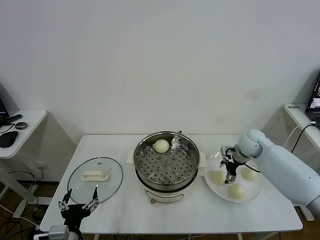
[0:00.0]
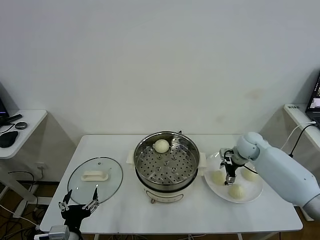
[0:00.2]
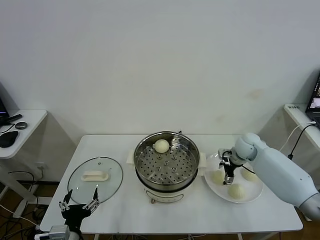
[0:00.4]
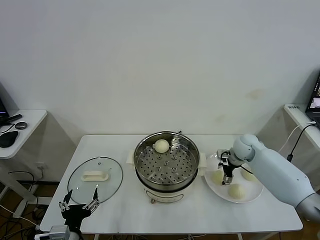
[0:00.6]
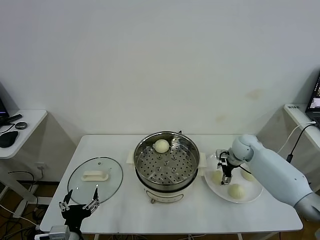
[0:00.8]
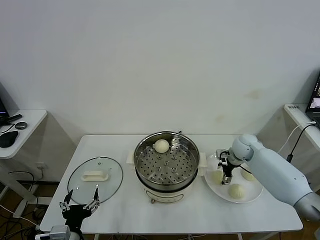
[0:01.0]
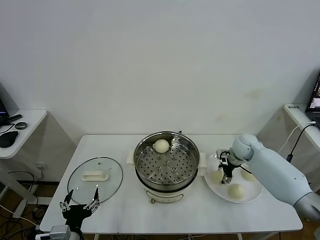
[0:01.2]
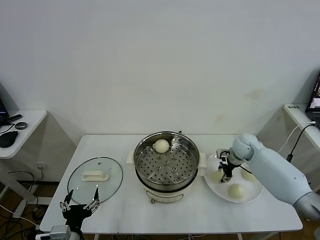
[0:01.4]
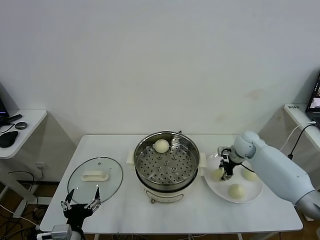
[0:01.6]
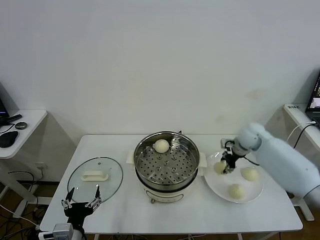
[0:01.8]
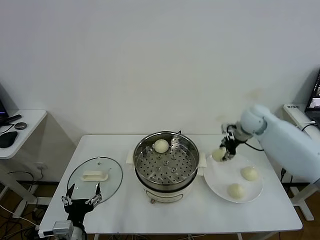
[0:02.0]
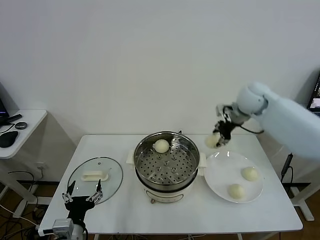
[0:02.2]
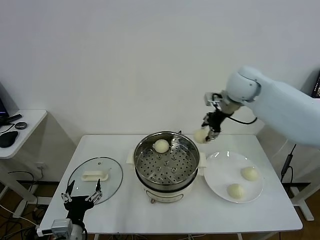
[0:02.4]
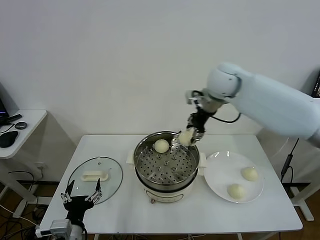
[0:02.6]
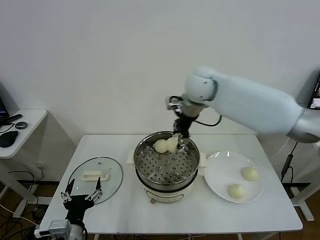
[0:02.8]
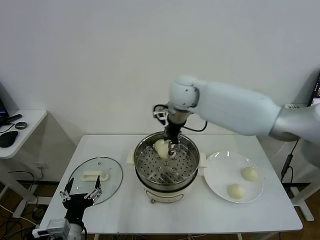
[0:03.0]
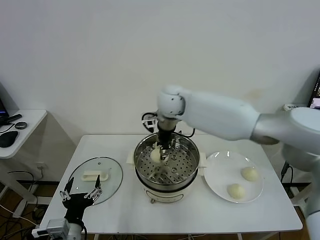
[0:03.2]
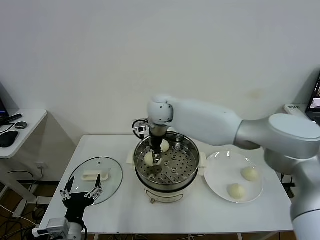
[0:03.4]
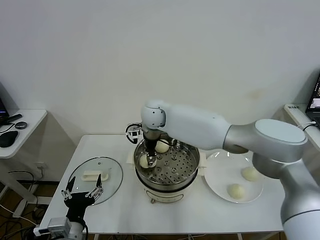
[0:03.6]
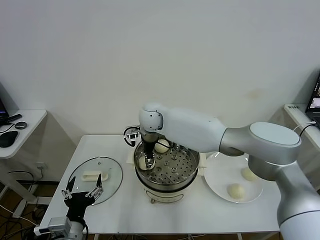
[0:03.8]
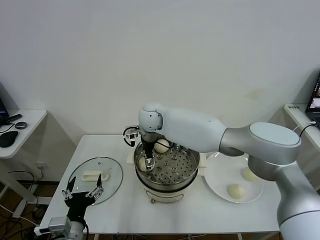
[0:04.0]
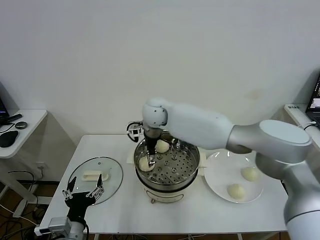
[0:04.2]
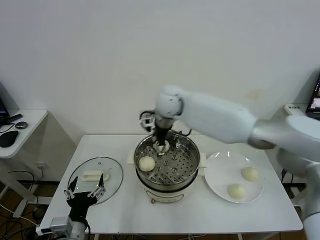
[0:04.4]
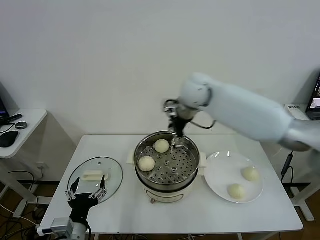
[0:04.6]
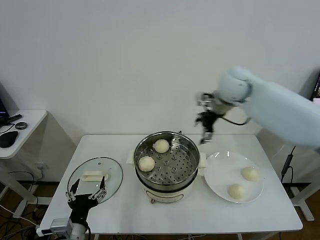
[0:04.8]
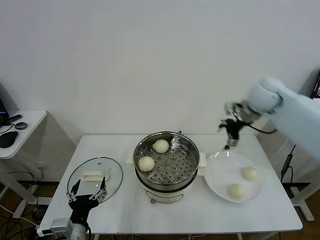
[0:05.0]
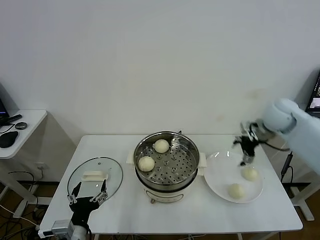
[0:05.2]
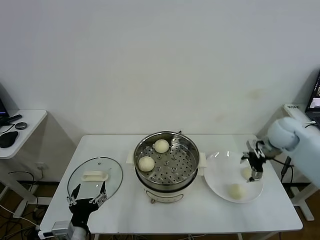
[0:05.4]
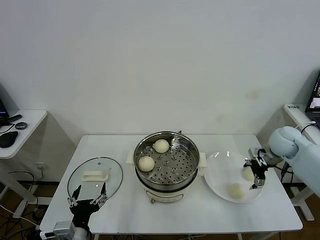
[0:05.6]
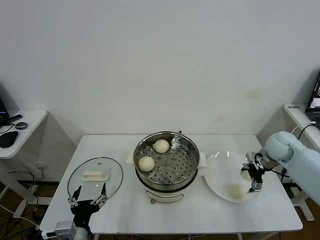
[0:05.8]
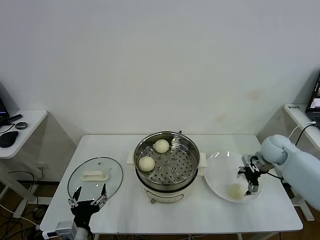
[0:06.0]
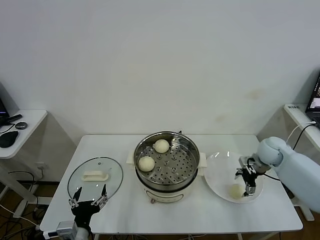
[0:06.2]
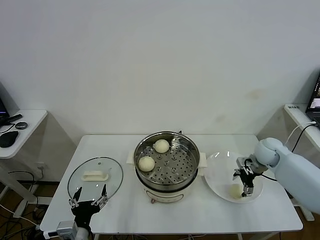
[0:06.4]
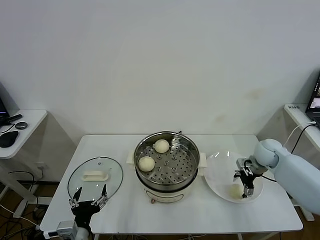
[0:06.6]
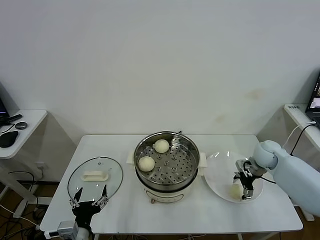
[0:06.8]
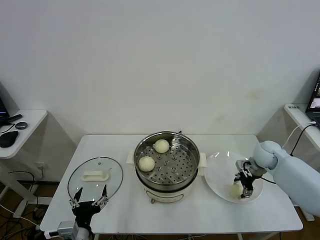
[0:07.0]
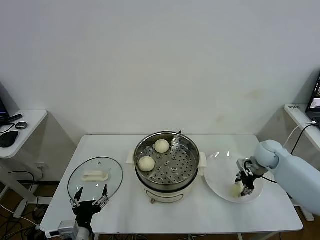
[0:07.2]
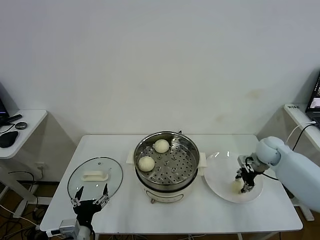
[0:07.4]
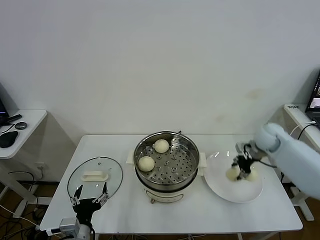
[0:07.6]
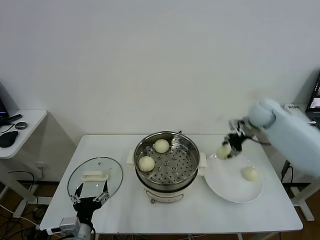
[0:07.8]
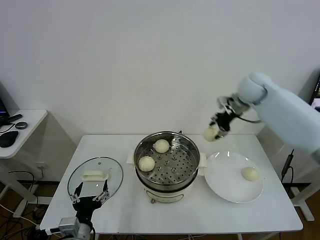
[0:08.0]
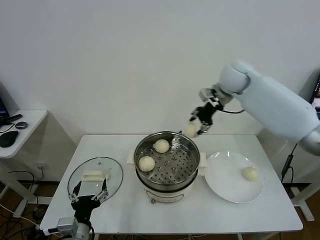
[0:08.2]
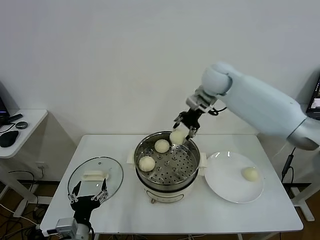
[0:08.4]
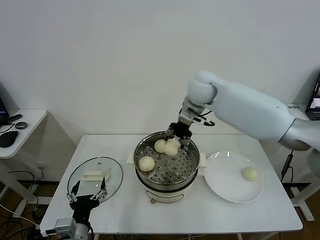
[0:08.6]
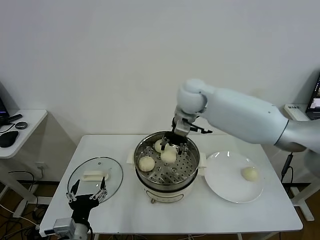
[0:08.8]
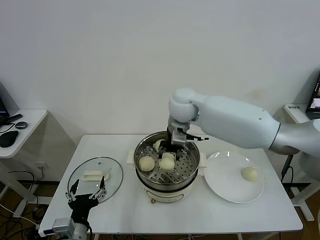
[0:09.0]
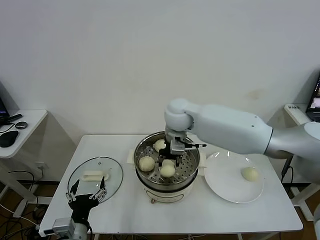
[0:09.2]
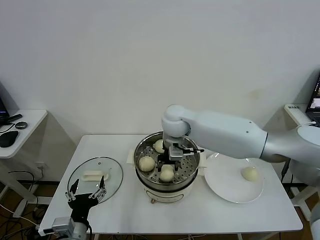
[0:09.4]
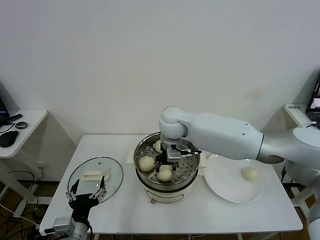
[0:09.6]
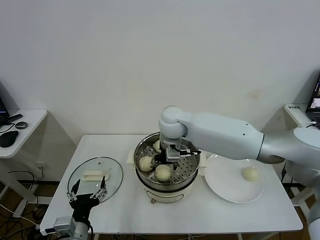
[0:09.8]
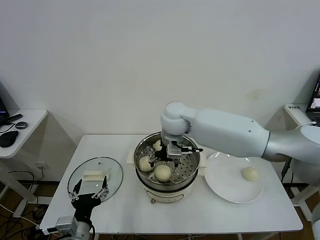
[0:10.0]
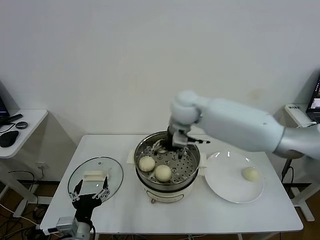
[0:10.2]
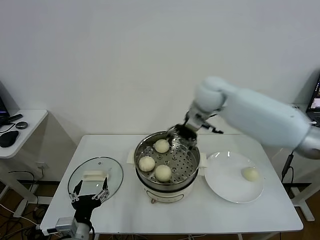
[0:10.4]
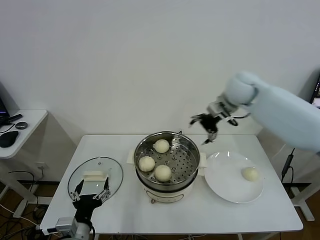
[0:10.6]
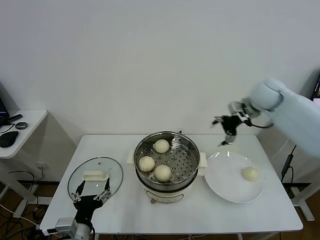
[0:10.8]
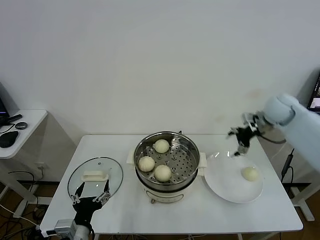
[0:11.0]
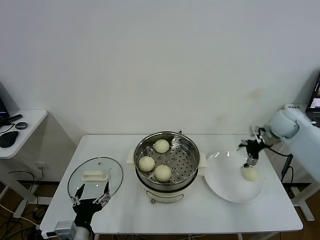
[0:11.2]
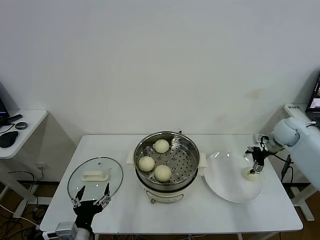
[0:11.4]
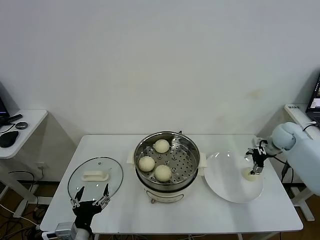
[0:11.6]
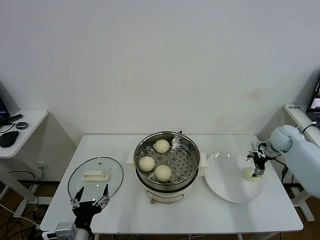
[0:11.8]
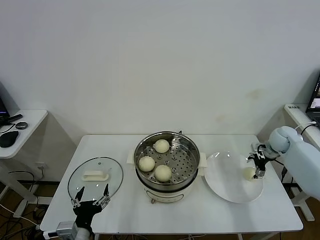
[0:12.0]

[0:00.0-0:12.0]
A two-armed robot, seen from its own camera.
Task of the whole recording: take steamed baozi put them in steamer.
Step, 0:01.6 to 0:04.6: Place the baozi on the steamer with right gripper.
Step, 0:04.8 to 0:07.0: Grasp the baozi in the plate with right gripper.
Step, 0:07.2 to 0:10.0: Place the baozi on the steamer with right gripper.
0:00.0 to 0:01.6: The right gripper closes its fingers.
0:01.6 to 0:03.0: The right gripper travels to the left and upward by approximately 35 cm.
0:03.0 to 0:04.4: The right gripper goes to the left and returns, roughly 10 cm each way, and opens its fingers.
0:04.4 to 0:06.0: The right gripper shifts roughly 40 cm to the right and downward.
0:06.0 to 0:07.6: The right gripper moves approximately 5 cm, and closes its fingers.
0:07.6 to 0:09.0: The right gripper heads to the left and upward, covering roughly 35 cm.
0:09.0 to 0:10.4: The right gripper goes about 10 cm to the right, and opens up.
0:10.4 to 0:12.0: The right gripper moves to the right and downward, roughly 35 cm.

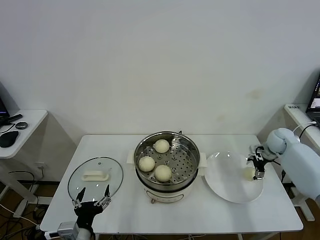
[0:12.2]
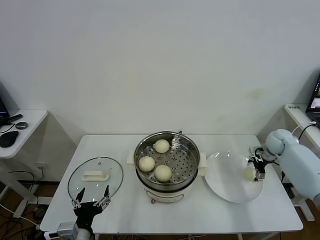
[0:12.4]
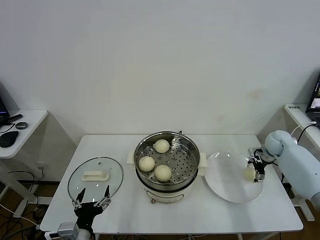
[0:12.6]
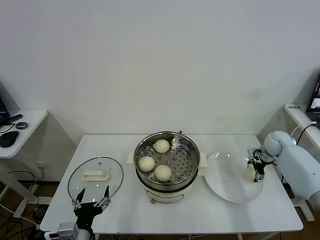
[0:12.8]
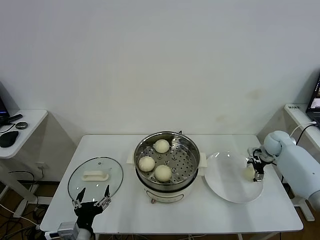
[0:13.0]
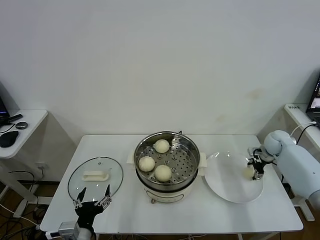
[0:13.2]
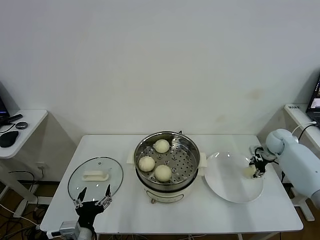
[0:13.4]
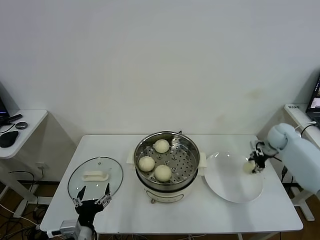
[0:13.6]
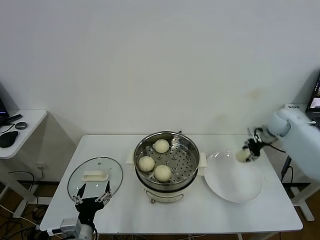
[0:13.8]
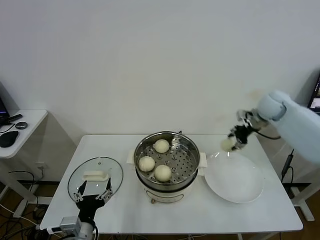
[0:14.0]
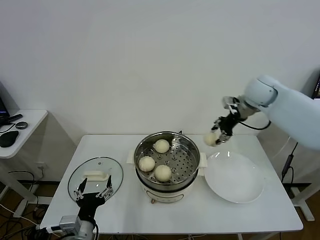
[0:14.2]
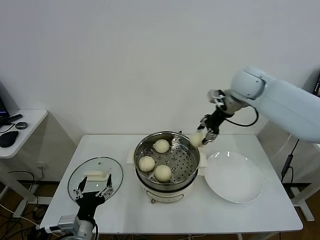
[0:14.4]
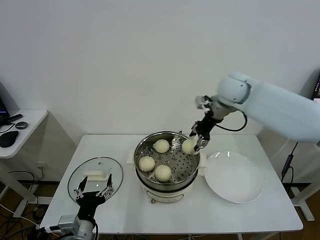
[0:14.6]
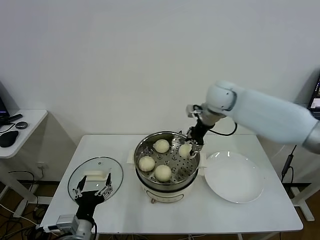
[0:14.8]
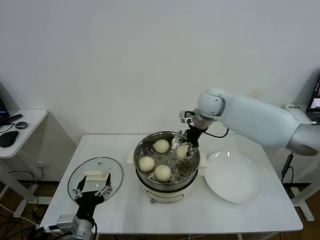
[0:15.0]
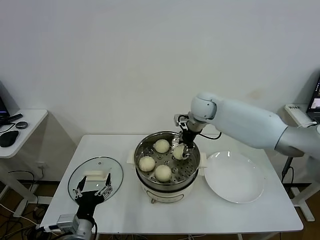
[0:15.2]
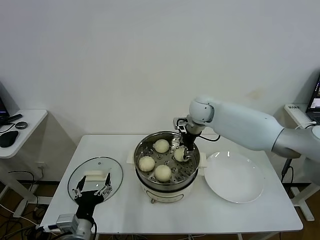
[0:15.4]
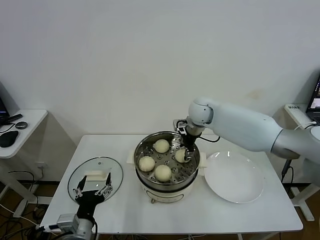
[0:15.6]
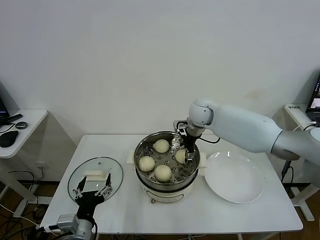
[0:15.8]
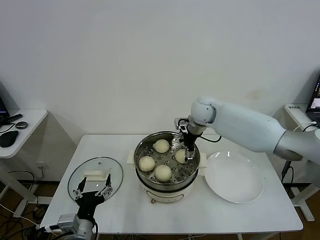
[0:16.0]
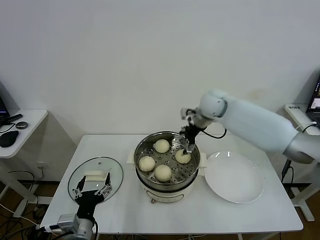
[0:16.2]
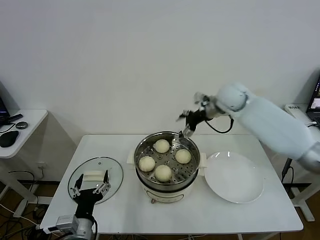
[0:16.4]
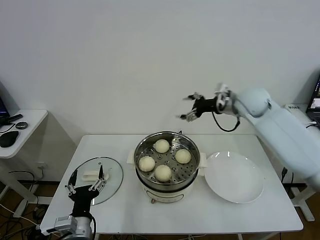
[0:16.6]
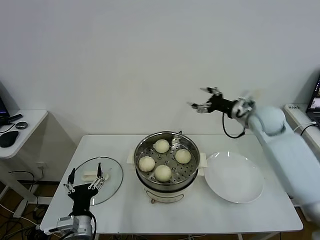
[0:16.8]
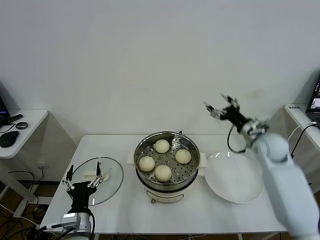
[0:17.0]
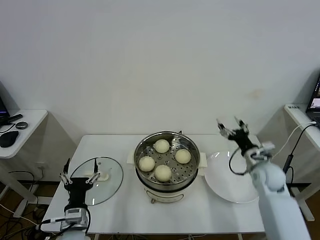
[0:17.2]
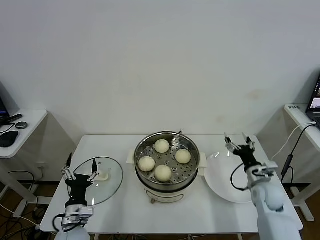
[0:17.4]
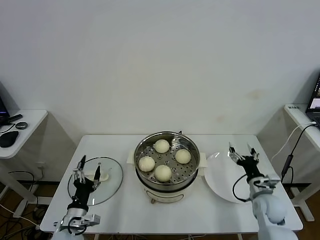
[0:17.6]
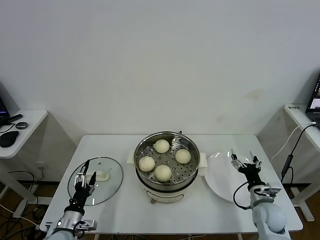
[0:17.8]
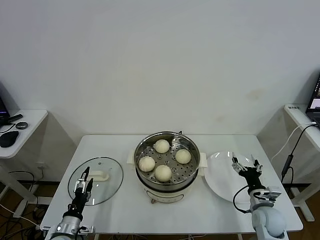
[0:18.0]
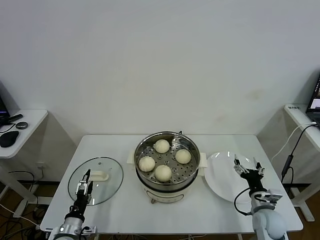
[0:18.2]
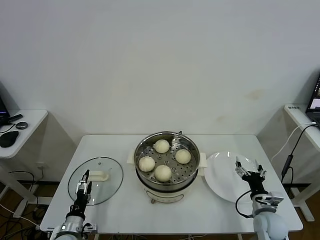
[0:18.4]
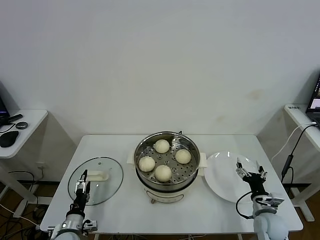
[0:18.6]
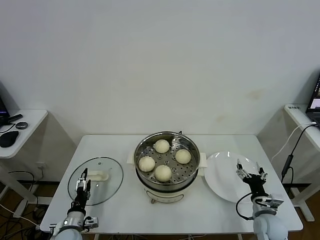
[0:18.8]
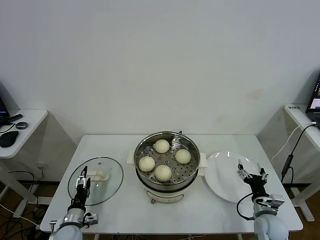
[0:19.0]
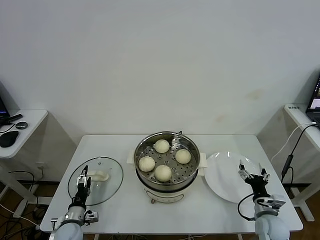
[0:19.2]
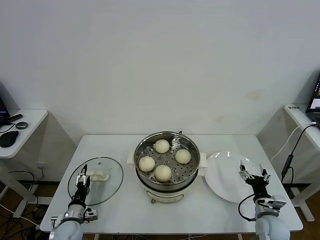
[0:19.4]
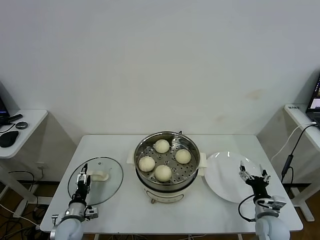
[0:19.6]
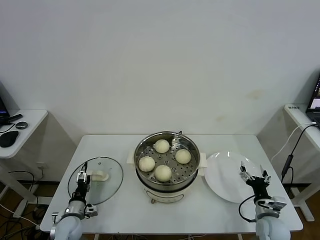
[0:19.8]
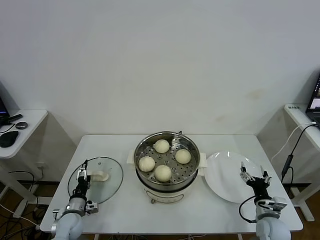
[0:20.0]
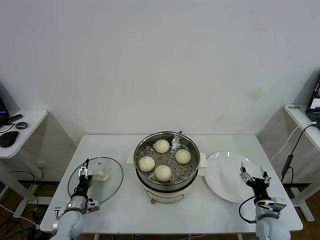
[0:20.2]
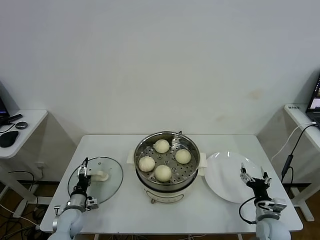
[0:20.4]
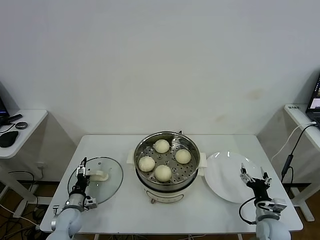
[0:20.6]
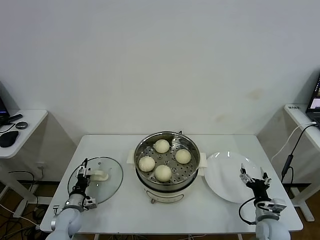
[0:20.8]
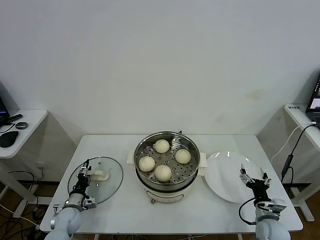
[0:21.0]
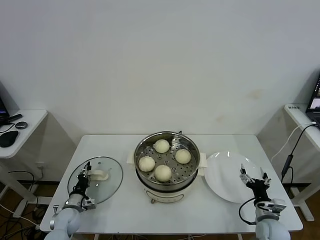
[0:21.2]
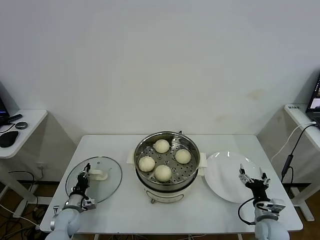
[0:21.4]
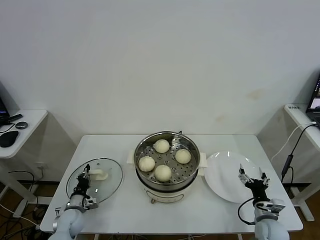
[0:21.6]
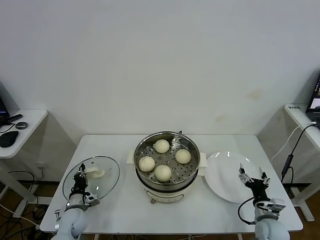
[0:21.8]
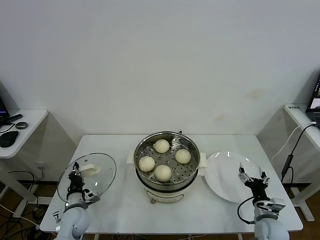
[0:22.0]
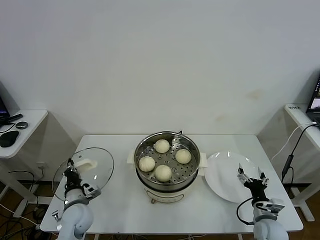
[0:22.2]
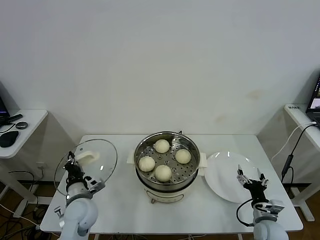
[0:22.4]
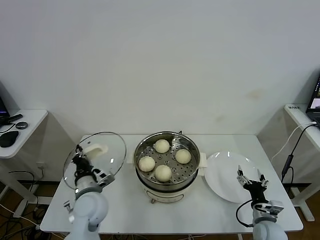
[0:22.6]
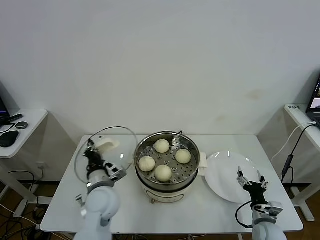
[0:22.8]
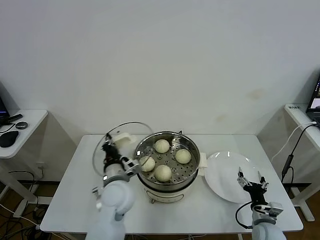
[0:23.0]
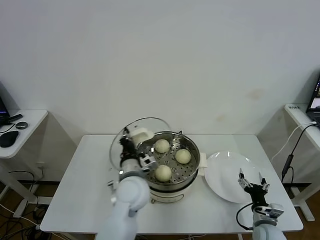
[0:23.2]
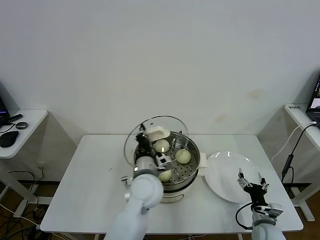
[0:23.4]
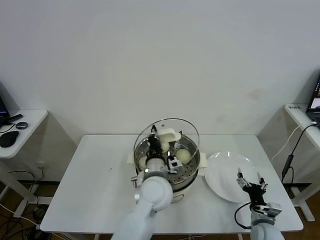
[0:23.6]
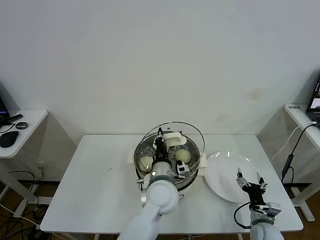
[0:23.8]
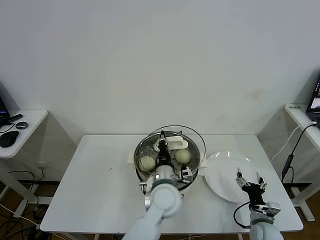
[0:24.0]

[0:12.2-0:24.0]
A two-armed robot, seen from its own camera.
Task of the whole recording: take steamed baozi put them in steamer.
Step, 0:13.4 to 0:16.2: Place the baozi on the steamer with right gripper.
Step, 0:16.4 to 0:21.6: Grasp the pot lid with left gripper.
0:12.2 to 0:13.6: The right gripper closes up.
0:13.6 to 0:15.2: The right gripper travels to the left by some 30 cm.
0:15.2 to 0:16.6: The right gripper moves to the right, about 15 cm, and opens its fingers.
0:16.6 to 0:18.2: The left gripper heads downward and to the left, covering approximately 15 cm, while the right gripper travels downward and backward by approximately 40 cm.
0:18.2 to 0:19.6: The left gripper goes roughly 5 cm forward.
0:19.6 to 0:21.0: The left gripper moves roughly 5 cm, and closes.
0:21.0 to 0:22.6: The left gripper is displaced upward and to the right by about 25 cm, and closes its fingers.
0:22.6 to 0:24.0: The left gripper travels to the right by about 25 cm.
